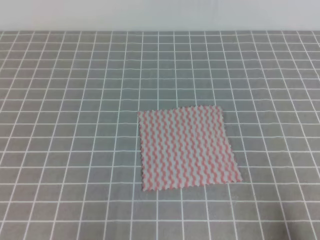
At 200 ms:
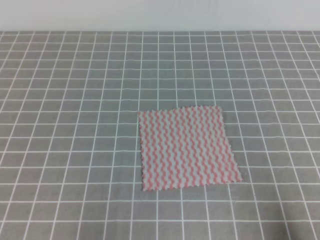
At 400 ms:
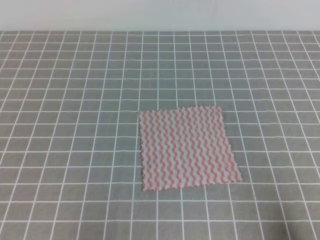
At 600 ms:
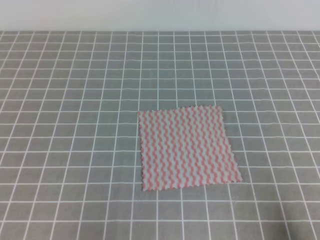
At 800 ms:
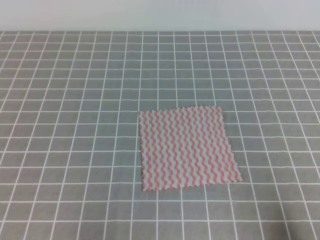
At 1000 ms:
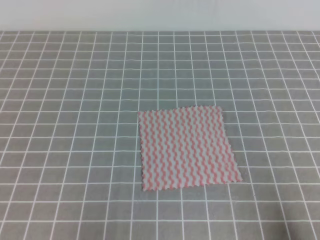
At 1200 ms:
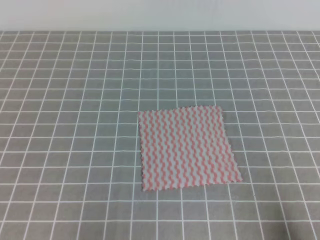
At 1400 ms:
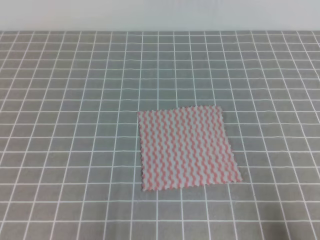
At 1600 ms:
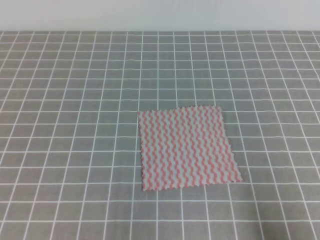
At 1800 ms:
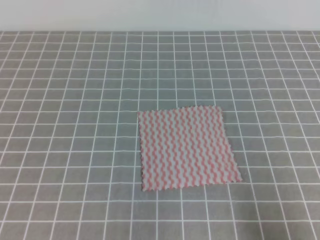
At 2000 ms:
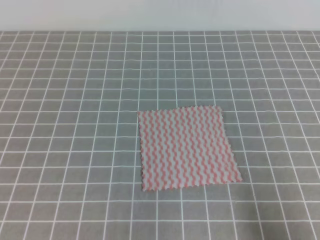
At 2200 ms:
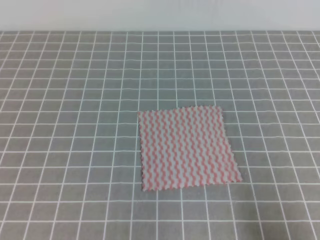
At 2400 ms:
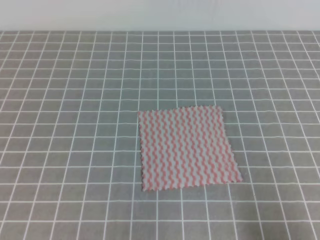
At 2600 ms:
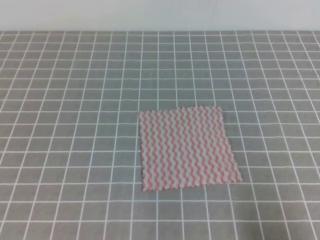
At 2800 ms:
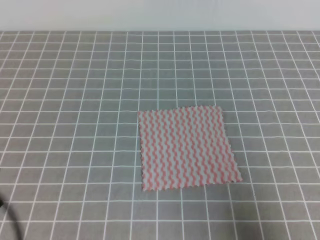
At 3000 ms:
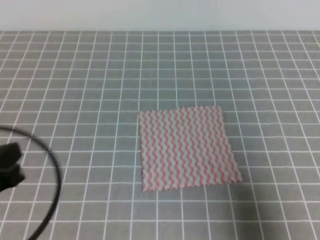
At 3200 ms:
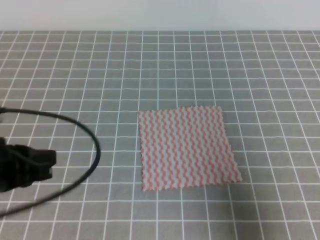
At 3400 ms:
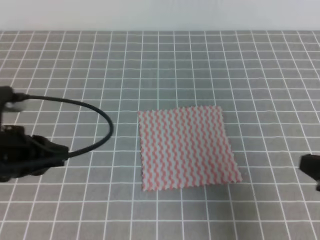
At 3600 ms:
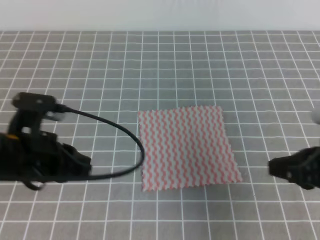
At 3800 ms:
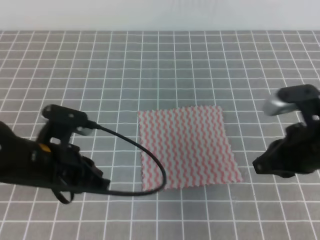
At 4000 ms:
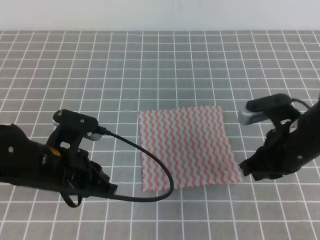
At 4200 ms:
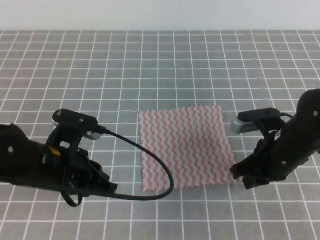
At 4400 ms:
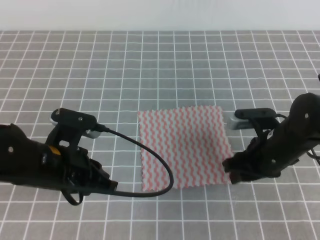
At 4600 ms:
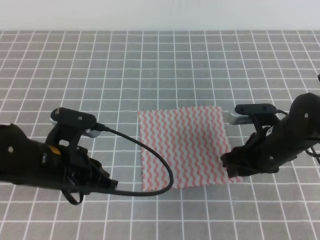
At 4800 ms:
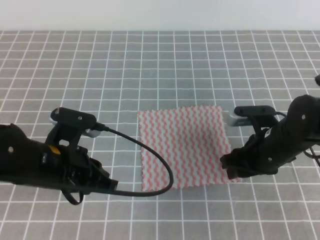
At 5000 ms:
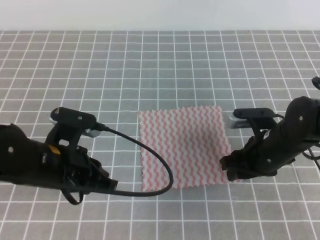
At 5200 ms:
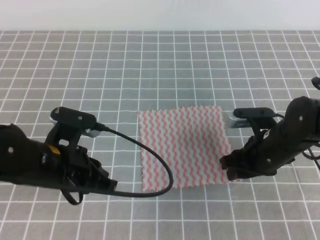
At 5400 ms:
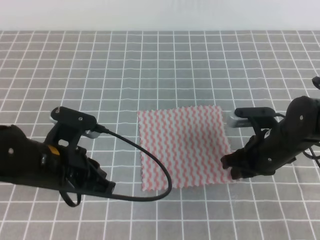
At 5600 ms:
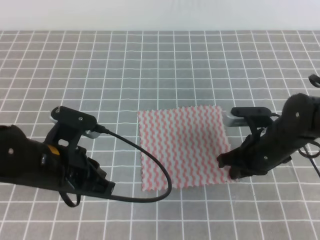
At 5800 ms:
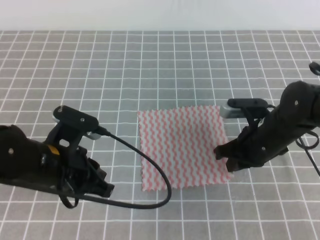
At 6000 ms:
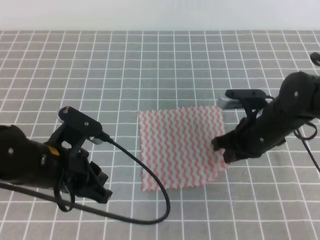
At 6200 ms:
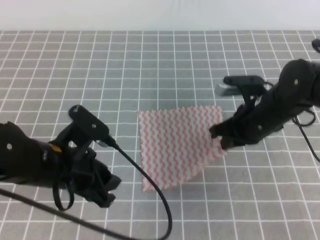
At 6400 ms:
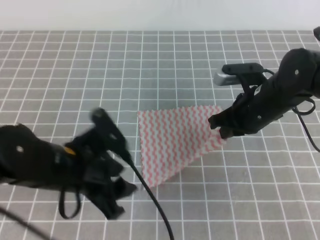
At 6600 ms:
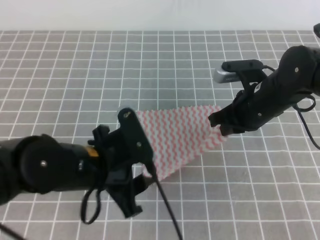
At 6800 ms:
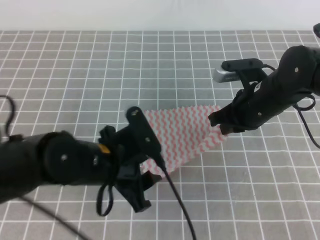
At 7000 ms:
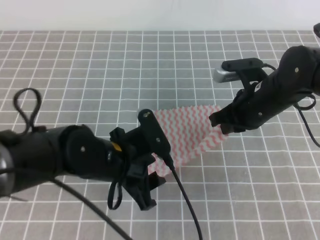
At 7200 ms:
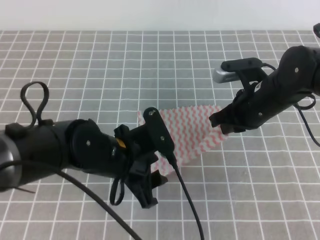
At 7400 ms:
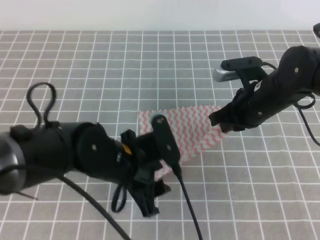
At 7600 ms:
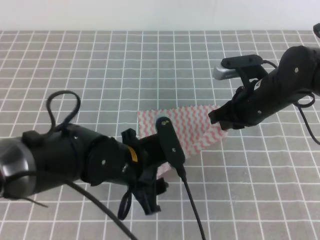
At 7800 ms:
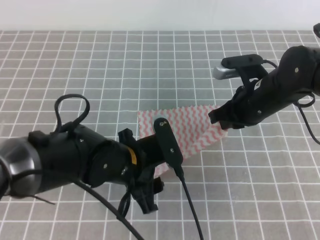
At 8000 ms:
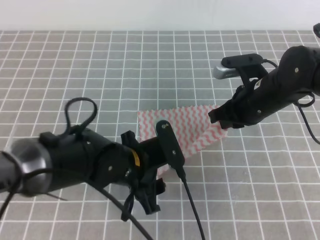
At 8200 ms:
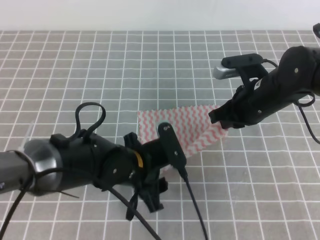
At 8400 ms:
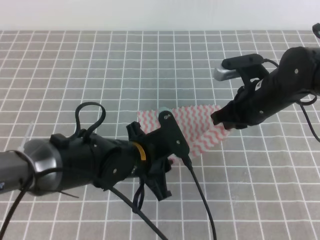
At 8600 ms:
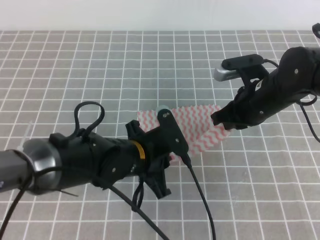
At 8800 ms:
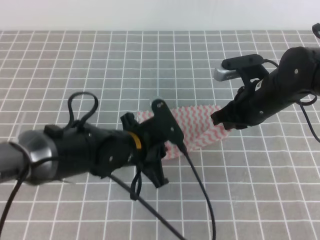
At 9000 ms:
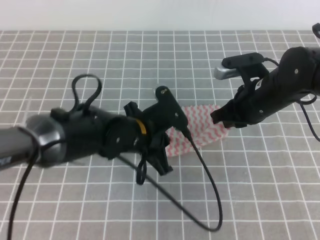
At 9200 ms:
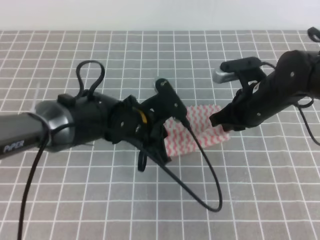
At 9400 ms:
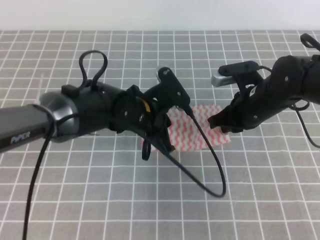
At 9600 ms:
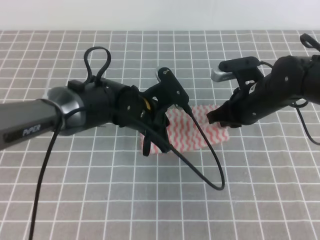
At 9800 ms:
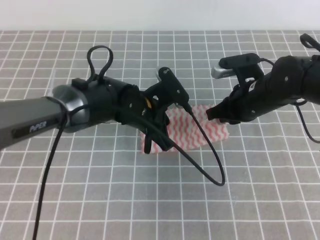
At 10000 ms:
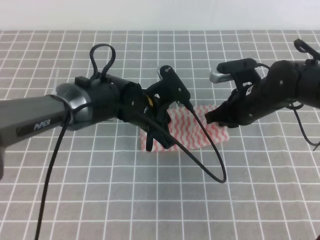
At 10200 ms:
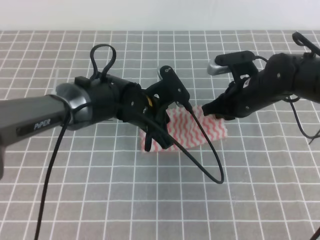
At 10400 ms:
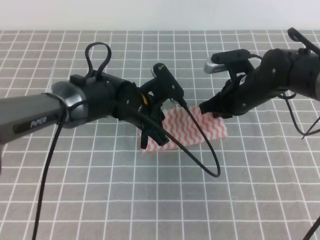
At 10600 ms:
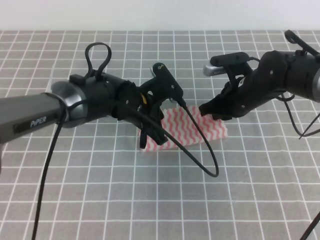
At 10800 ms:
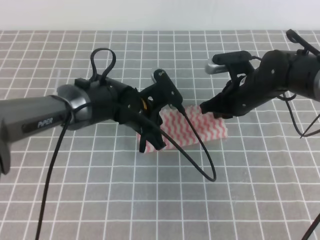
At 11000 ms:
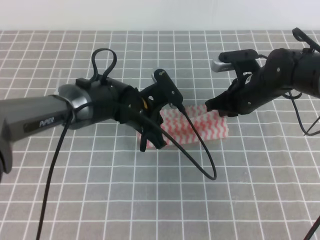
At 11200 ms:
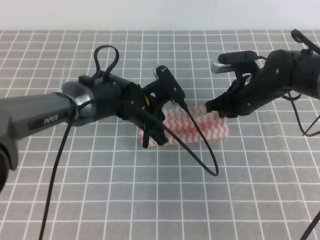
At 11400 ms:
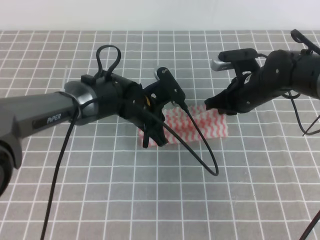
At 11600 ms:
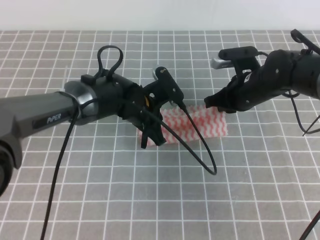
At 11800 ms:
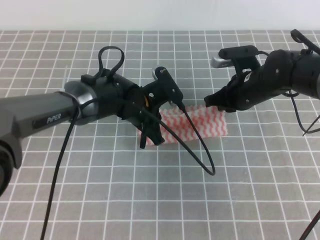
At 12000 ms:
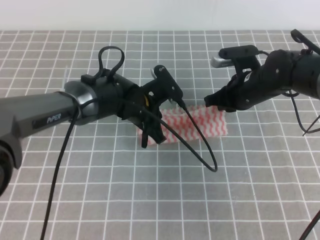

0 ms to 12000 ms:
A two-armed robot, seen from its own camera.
1600 ms to 3000 ms: The left gripper travels upward and forward by approximately 10 cm; the right gripper heads upward, covering about 5 cm.
3000 ms to 4400 ms: The left gripper heads forward, to the right and downward, covering roughly 15 cm, while the right gripper goes some 20 cm forward and to the left, and opens up.
4400 ms to 6000 ms: The right gripper closes.
6000 ms to 7600 ms: The left gripper moves to the right, about 10 cm, and opens its fingers.
7600 ms to 9000 ms: The left gripper travels forward by some 5 cm, and closes up.
9000 ms to 10400 ms: The left gripper heads forward, covering some 5 cm.
10400 ms to 12000 ms: The grippers stay close to where they were, moving slightly.

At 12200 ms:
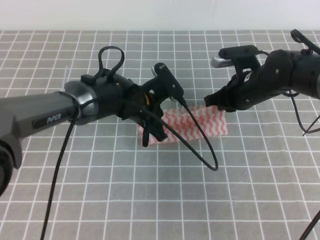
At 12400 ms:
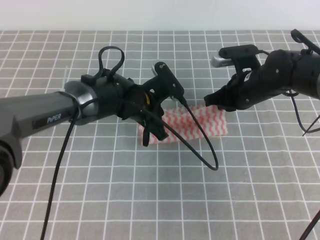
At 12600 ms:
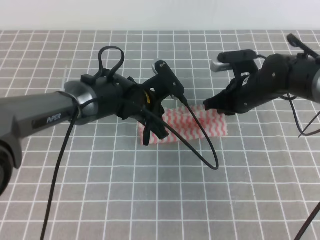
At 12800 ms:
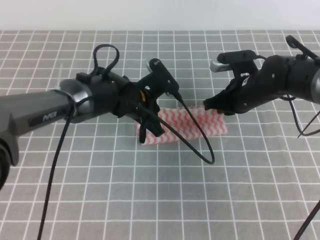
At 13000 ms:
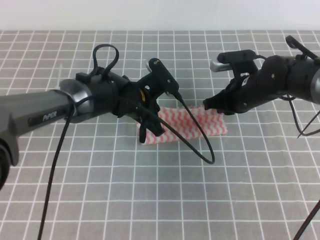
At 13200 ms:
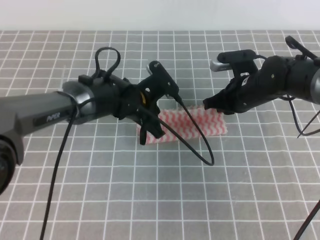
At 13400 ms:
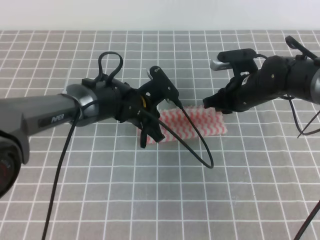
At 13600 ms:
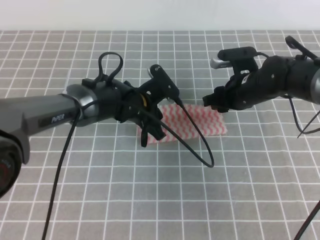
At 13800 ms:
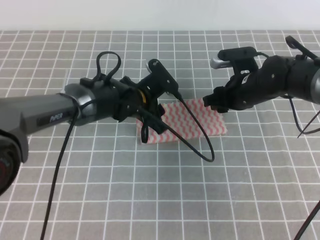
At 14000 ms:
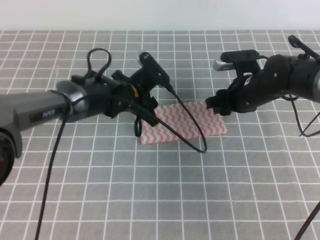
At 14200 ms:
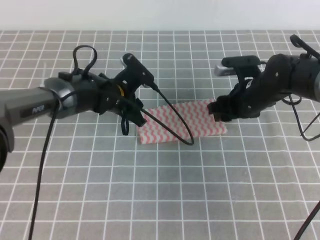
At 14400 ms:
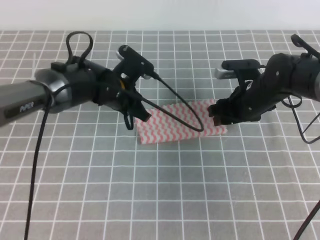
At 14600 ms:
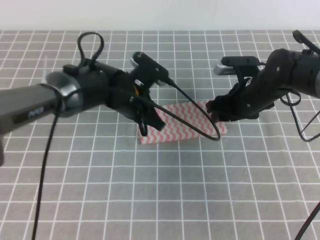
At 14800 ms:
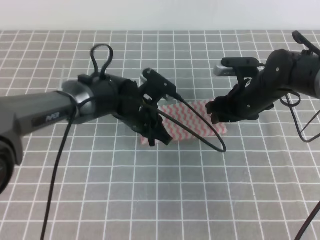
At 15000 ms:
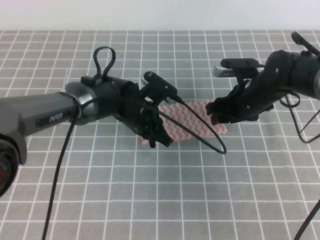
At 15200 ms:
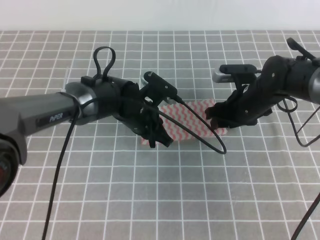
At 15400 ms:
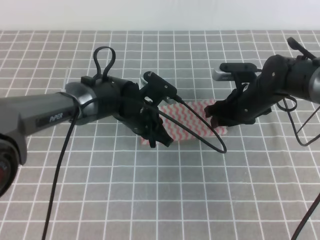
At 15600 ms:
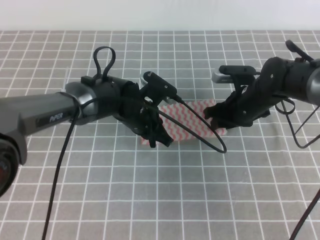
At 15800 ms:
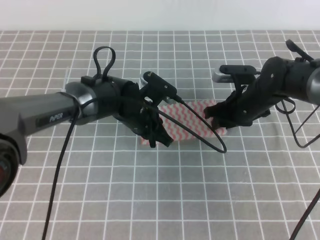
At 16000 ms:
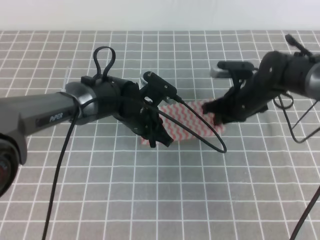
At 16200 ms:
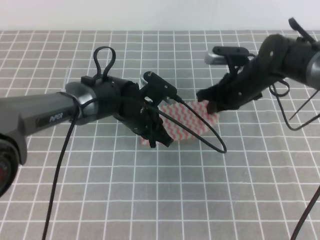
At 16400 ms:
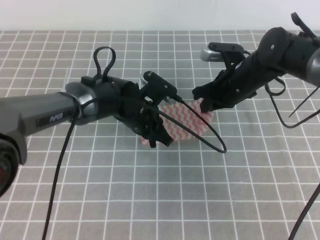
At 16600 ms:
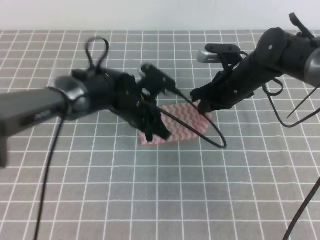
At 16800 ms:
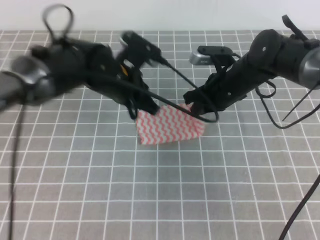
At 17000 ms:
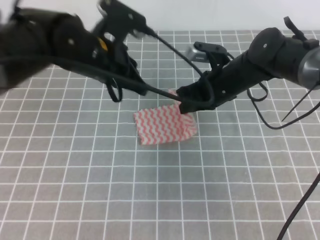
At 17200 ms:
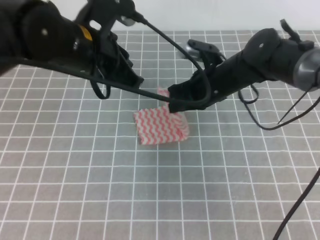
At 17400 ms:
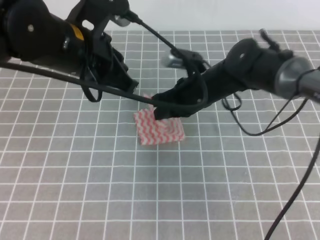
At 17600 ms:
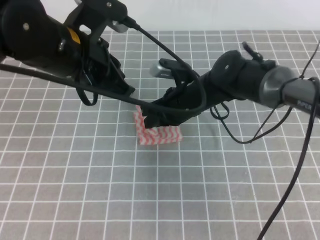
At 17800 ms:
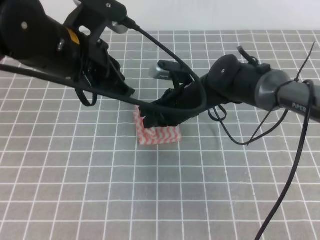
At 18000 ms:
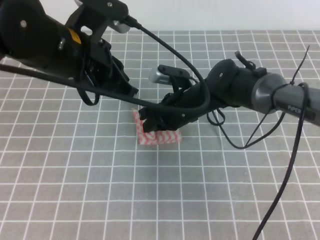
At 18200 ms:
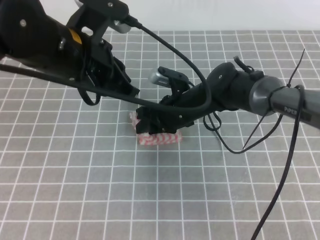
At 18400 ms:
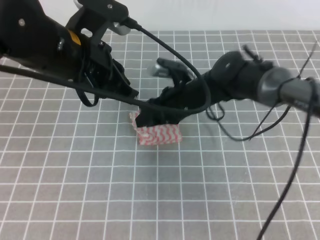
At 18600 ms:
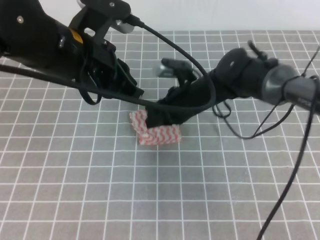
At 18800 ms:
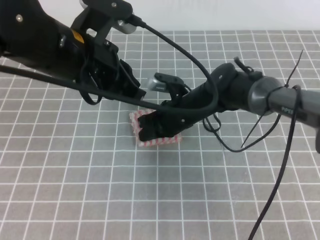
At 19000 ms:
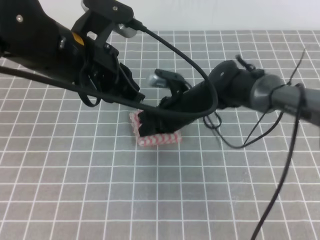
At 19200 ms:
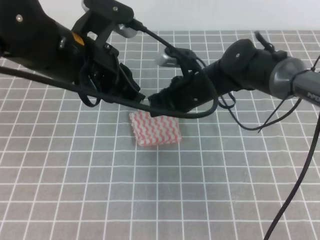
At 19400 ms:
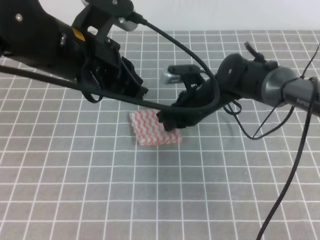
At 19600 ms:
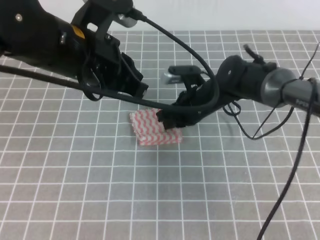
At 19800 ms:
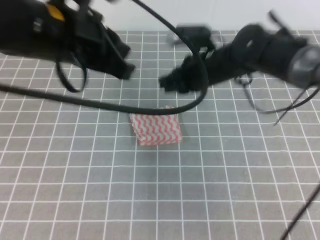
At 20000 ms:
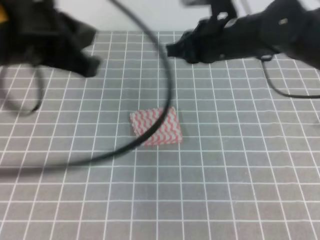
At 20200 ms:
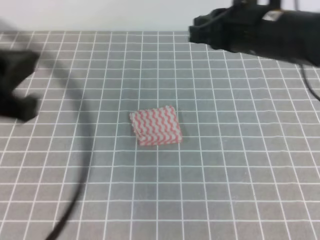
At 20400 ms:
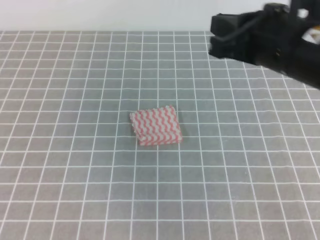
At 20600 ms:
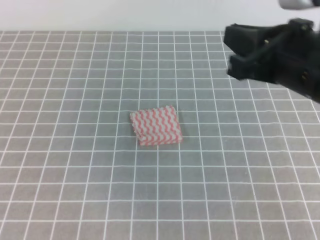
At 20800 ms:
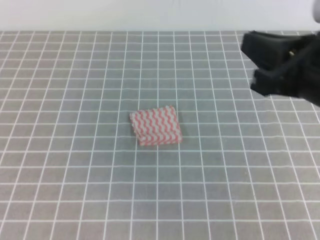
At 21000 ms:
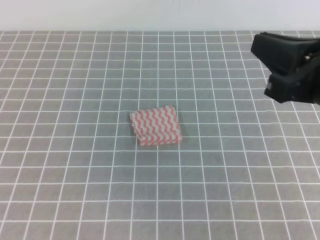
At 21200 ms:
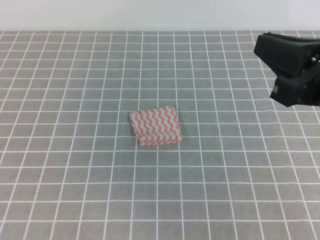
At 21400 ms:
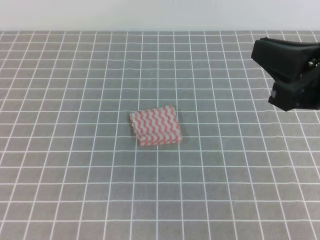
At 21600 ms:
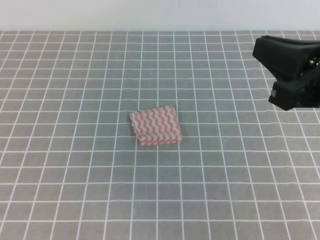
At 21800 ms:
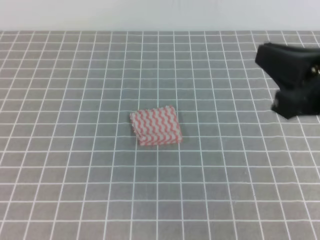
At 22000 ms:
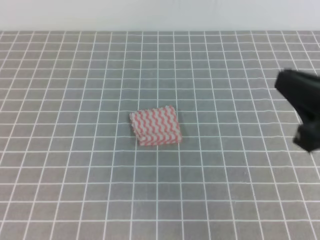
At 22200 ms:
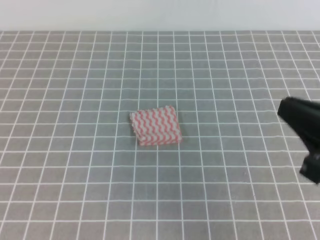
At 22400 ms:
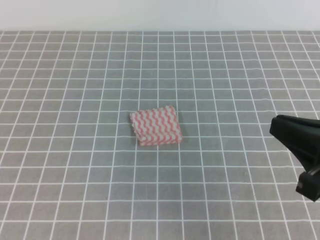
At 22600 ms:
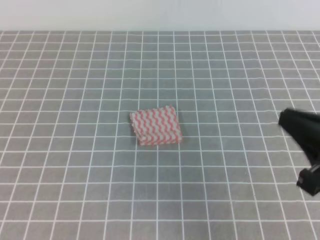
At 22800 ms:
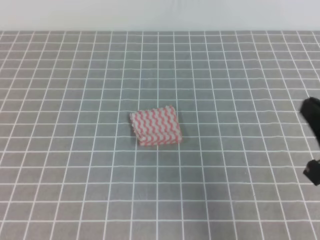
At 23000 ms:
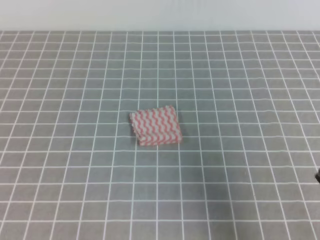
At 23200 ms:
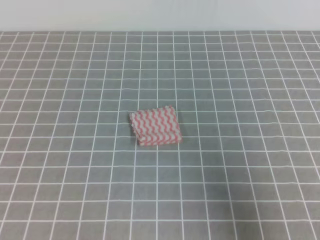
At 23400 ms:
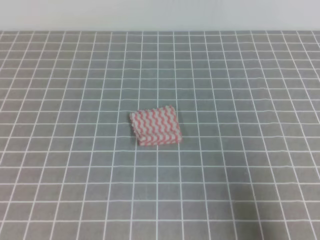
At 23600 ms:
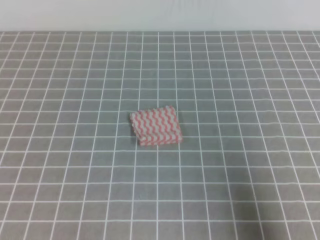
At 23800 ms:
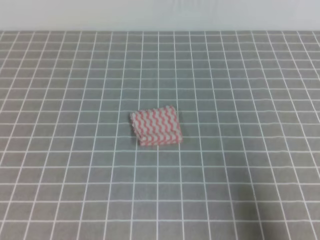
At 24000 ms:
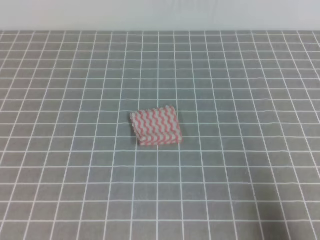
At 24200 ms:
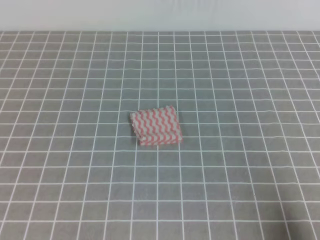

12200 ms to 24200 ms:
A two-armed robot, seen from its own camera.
12200 ms to 13800 ms: The right gripper opens. Meanwhile the left gripper opens.
13800 ms to 15200 ms: The left gripper closes its fingers.
15200 ms to 16600 ms: The right gripper closes up.
16600 ms to 18200 ms: The right gripper goes about 10 cm to the left, and opens its fingers; the left gripper moves upward, backward and to the left, some 20 cm.
18200 ms to 19800 ms: The right gripper shifts roughly 5 cm upward, and closes up.
19800 ms to 21200 ms: The right gripper heads backward, upward and to the right, covering some 30 cm; the left gripper shifts some 30 cm backward and to the left.
21200 ms to 22600 ms: The right gripper moves downward, roughly 5 cm.
22600 ms to 24200 ms: The right gripper is displaced downward, to the right and backward by roughly 15 cm.
